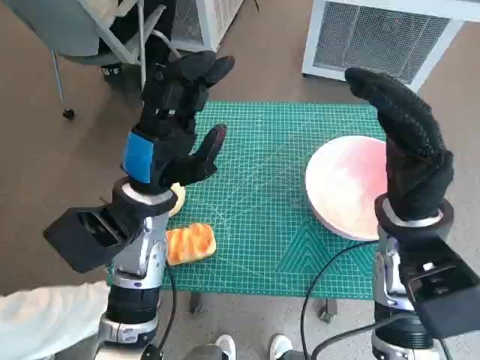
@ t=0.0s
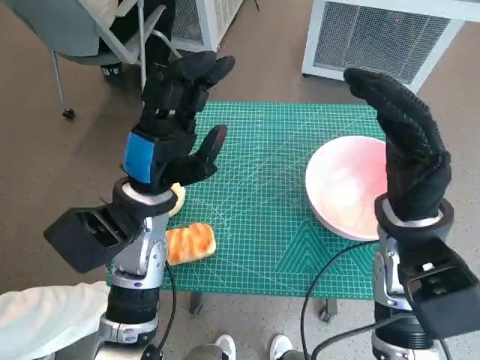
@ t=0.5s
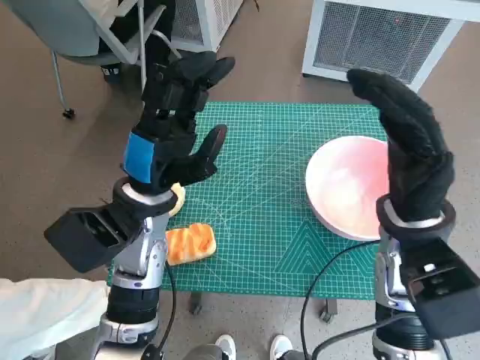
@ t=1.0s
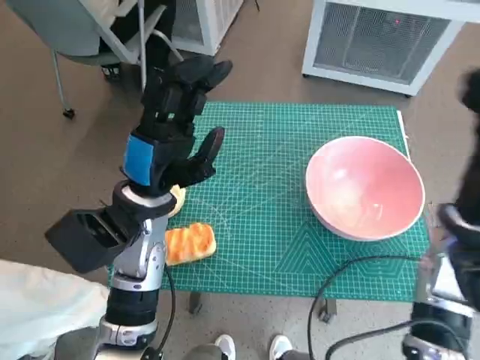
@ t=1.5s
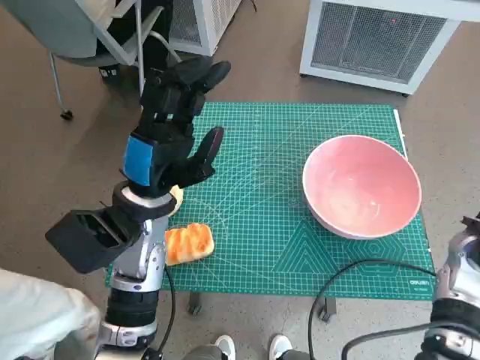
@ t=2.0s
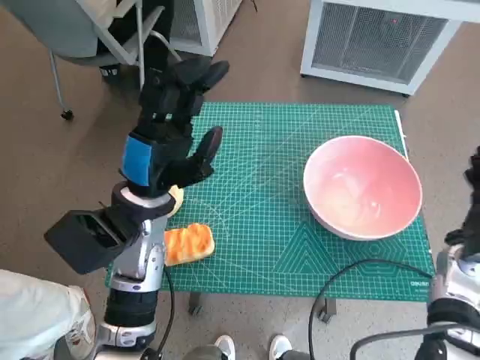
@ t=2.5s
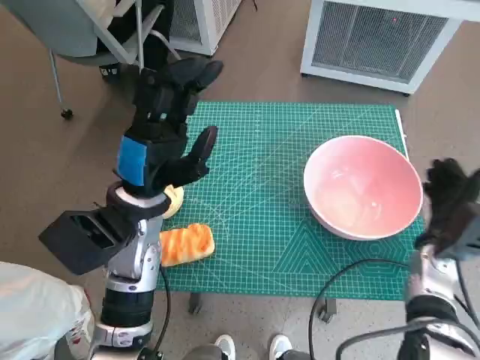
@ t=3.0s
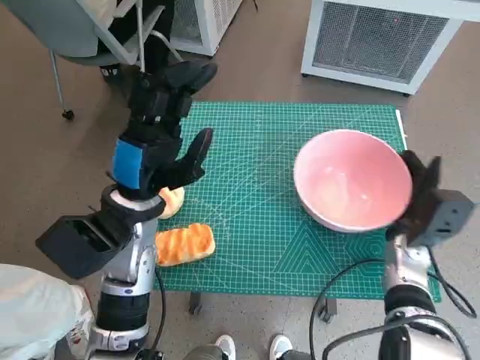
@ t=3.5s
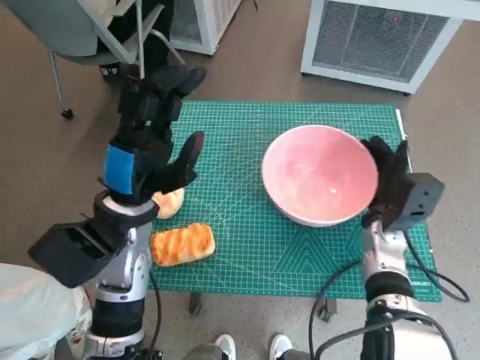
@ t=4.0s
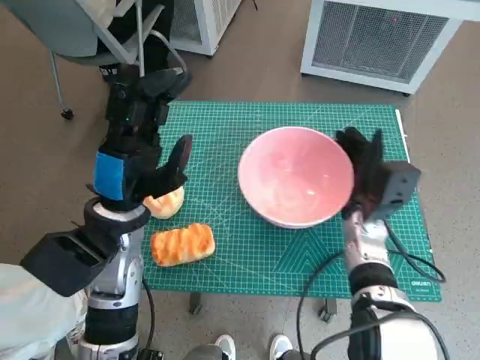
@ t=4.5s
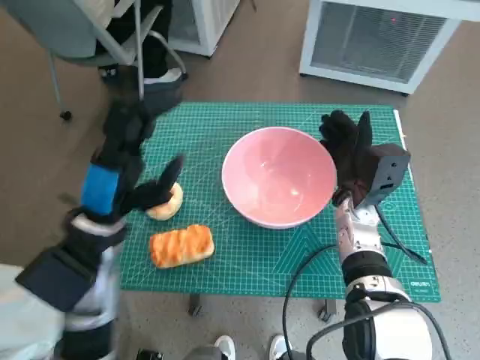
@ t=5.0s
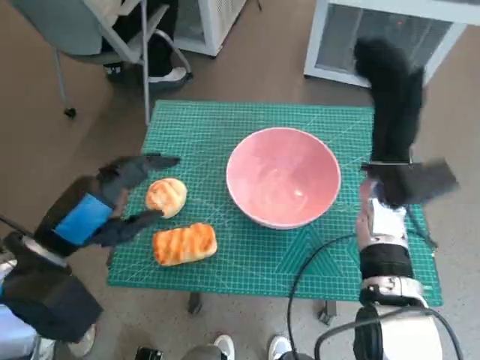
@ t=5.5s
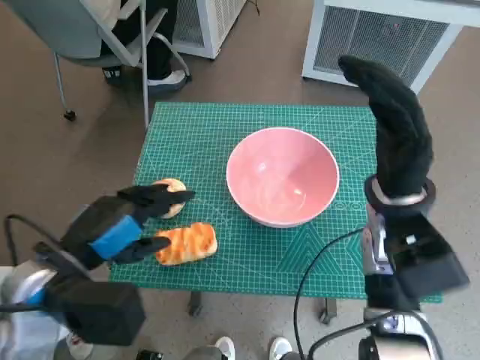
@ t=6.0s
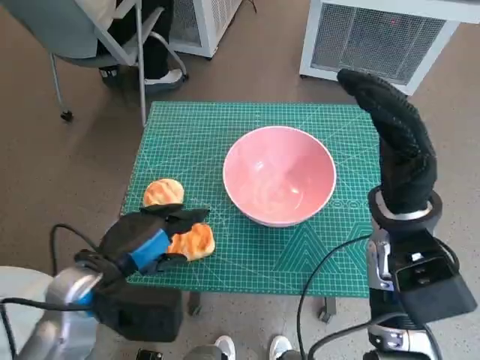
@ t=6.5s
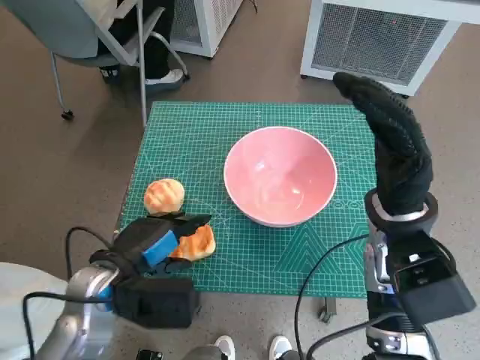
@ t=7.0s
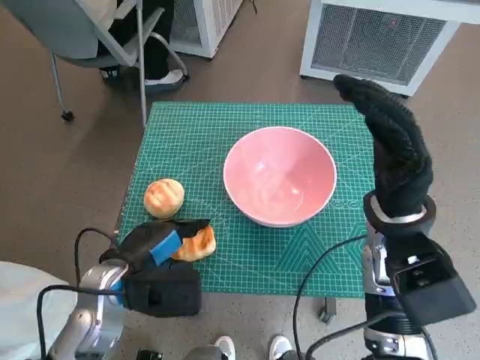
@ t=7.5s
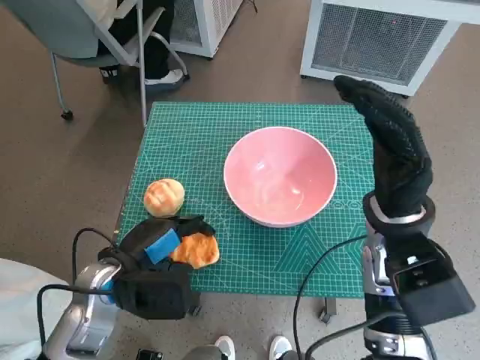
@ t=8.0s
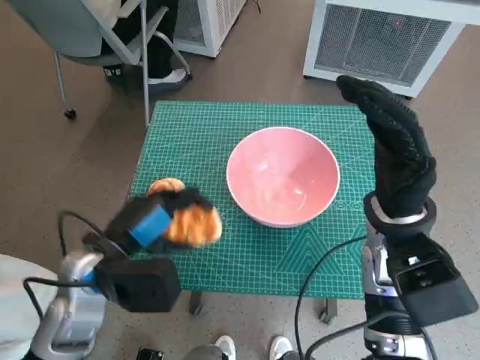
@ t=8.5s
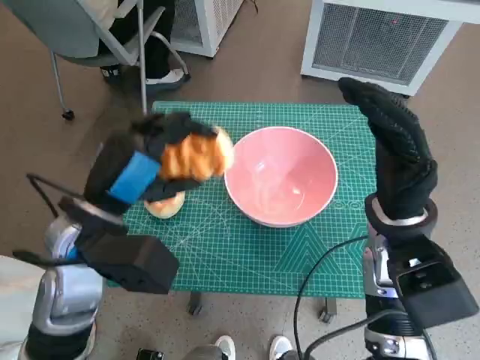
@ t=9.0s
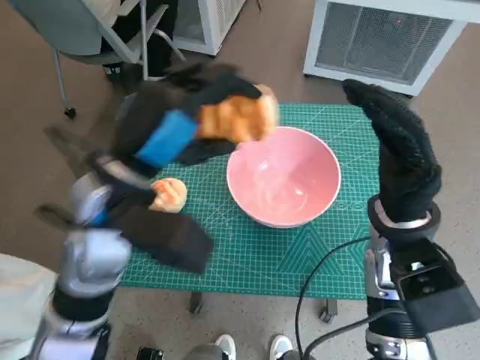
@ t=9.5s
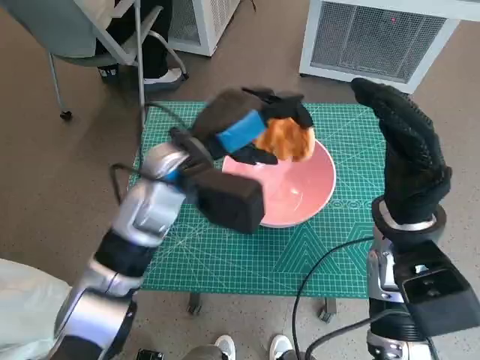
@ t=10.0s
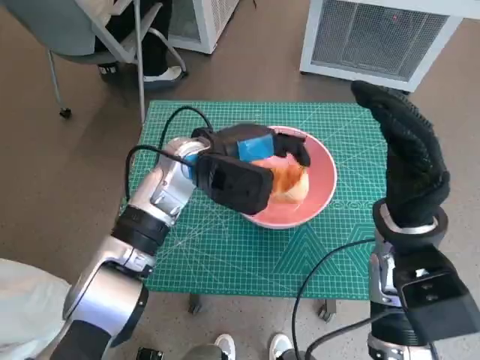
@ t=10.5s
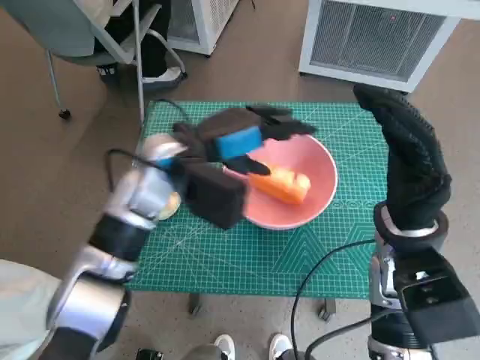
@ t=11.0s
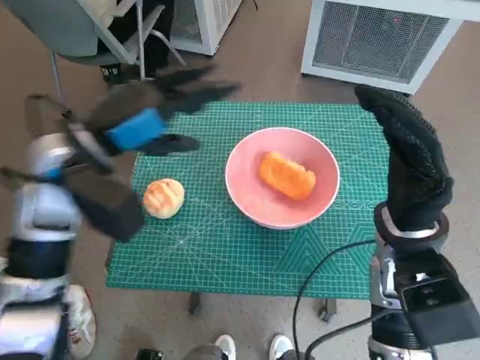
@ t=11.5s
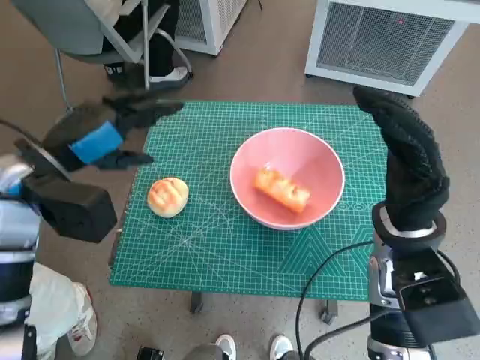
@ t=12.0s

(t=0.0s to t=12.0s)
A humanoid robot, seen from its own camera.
Task of the whole recording: Push the bowl to the center of the table and put the bread into the bowl.
Step, t=0.0s - t=5.0s: Move the pink bowl to the center of table with right hand.
Step, t=5.5s - t=7.5s: Grasp the long bread with left hand.
Step, t=8.0s - t=11.0s: Place the long bread in pink bowl with left hand.
t=2.0s - t=4.0s: The right hand moves to the left and downward, roughly 10 cm.
t=4.0s - t=6.0s: The right hand heads upward, covering approximately 15 cm. Meanwhile the left hand heads backward and to the left, covering about 10 cm.
t=6.0s - t=8.0s: The left hand is displaced downward by some 10 cm.
t=8.0s - t=10.0s: The left hand moves upward, forward and to the right, some 20 cm.
t=10.0s - t=12.0s: The left hand moves to the left, some 15 cm.

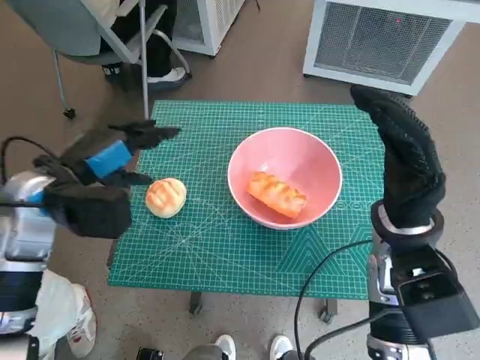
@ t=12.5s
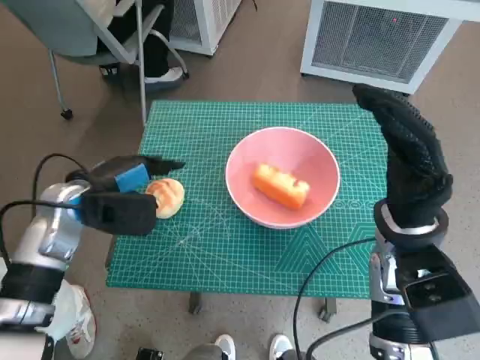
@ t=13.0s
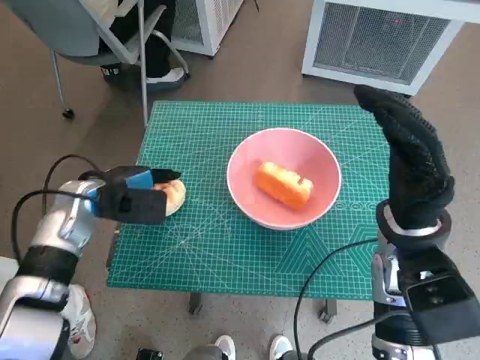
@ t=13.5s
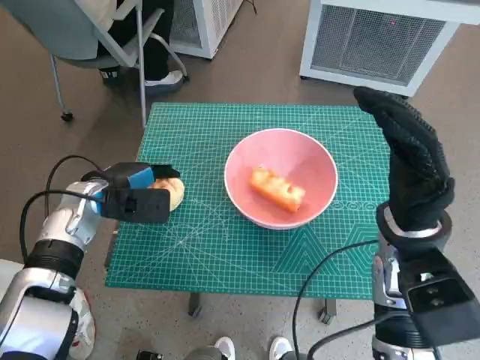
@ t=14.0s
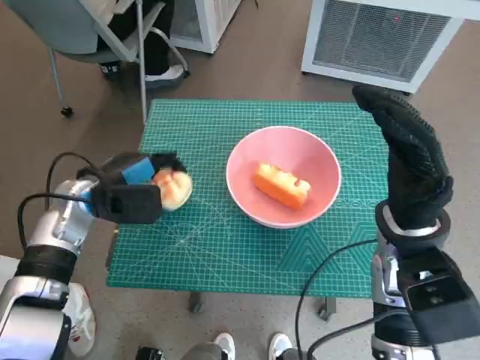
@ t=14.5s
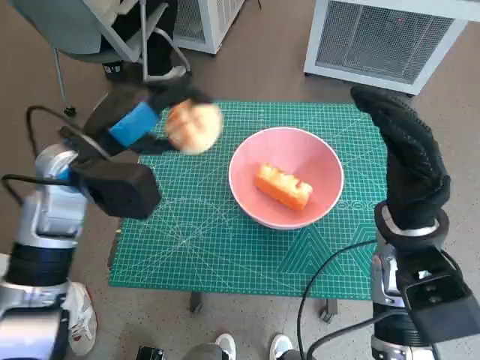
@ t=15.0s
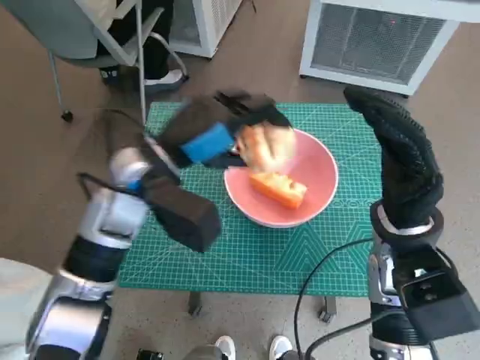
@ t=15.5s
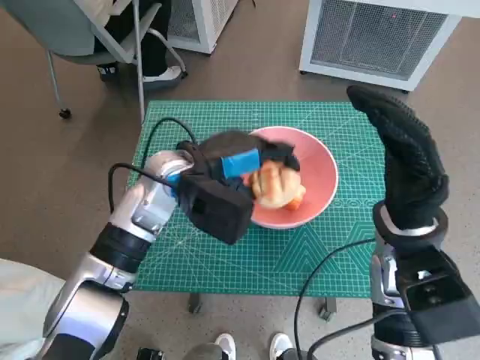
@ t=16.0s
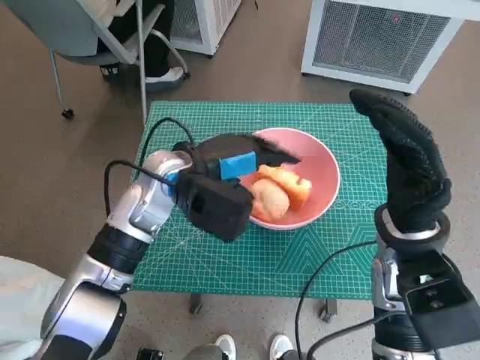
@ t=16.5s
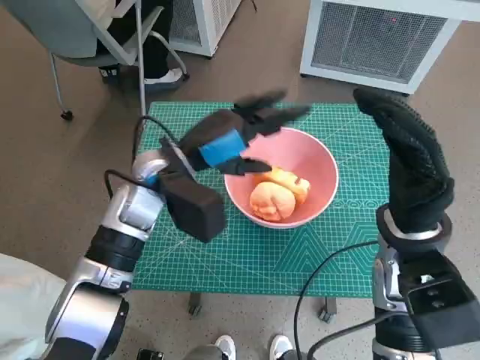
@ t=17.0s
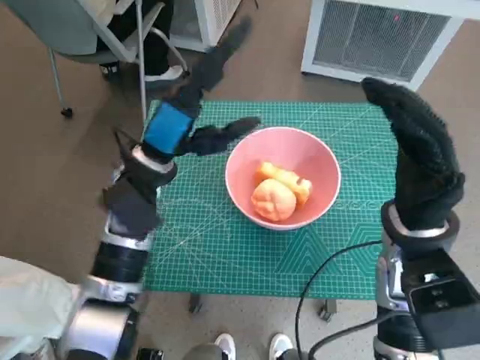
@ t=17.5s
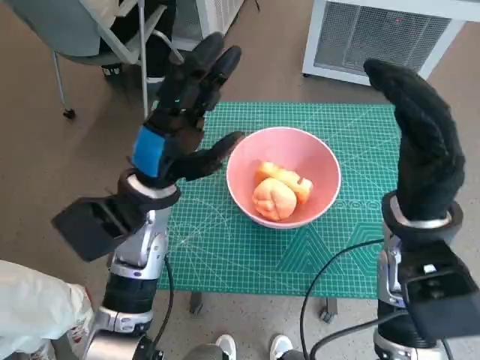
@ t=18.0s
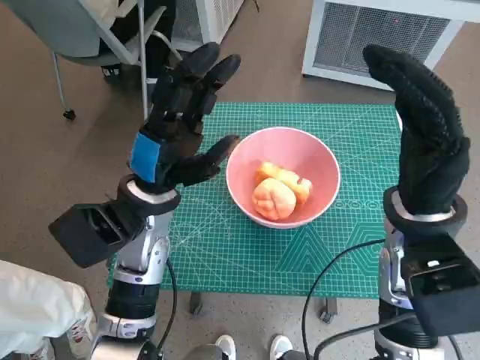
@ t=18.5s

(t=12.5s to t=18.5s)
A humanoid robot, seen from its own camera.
Task of the whole recording: Push the bowl to the center of the table and put the bread into the bowl.
Step, t=14.0s - t=16.5s: Place the round bread in pink bowl with left hand.
t=12.5s - t=14.5s: The left hand shifts roughly 5 cm downward.
t=14.5s - t=16.5s: The left hand shifts roughly 15 cm to the right and upward.
t=16.5s - t=18.5s: The left hand ends up roughly 5 cm from where it was.
